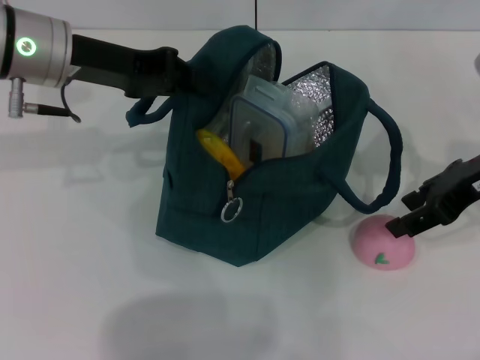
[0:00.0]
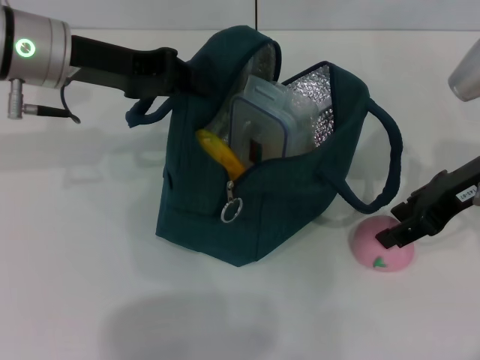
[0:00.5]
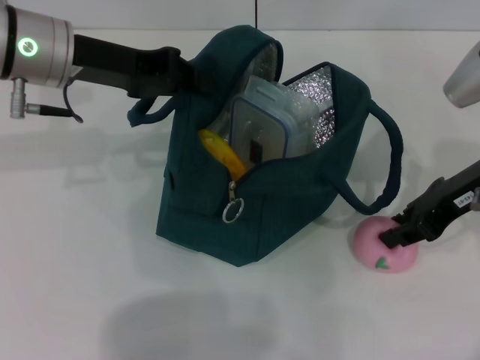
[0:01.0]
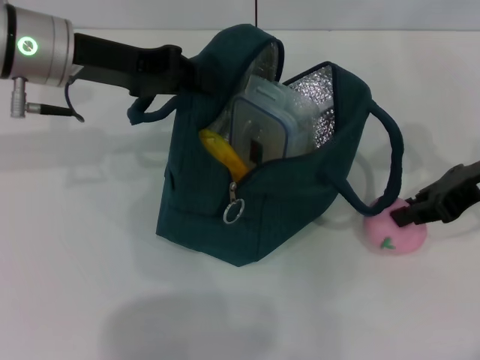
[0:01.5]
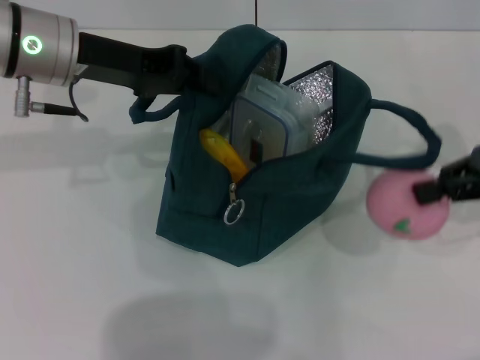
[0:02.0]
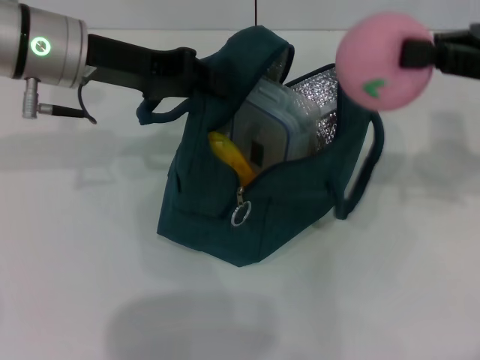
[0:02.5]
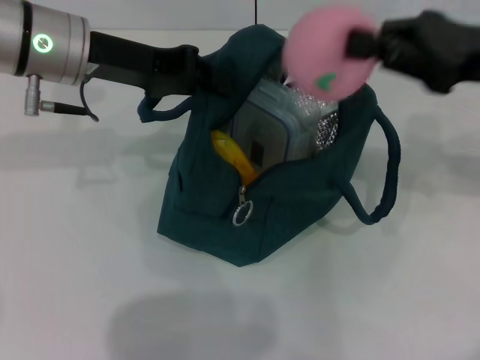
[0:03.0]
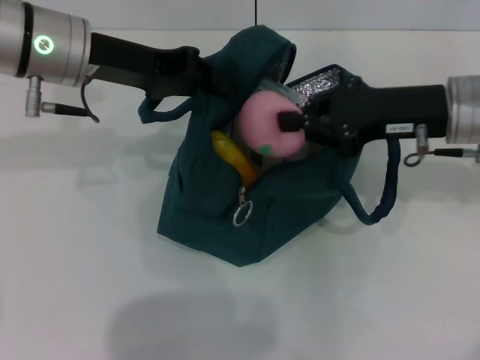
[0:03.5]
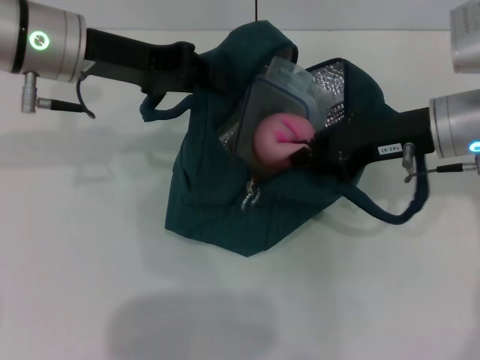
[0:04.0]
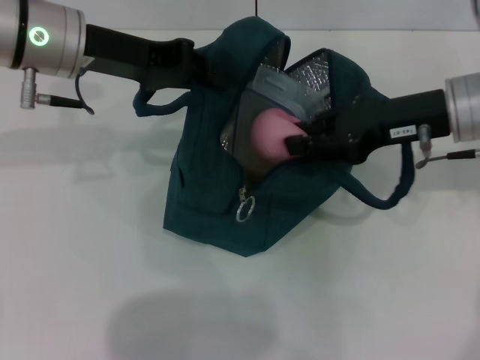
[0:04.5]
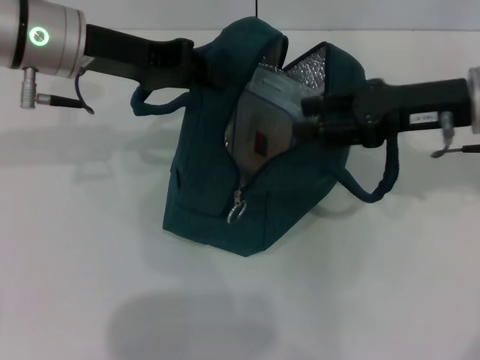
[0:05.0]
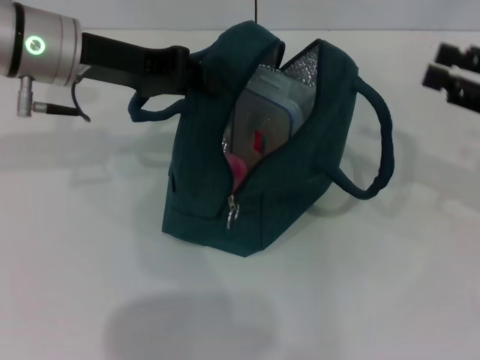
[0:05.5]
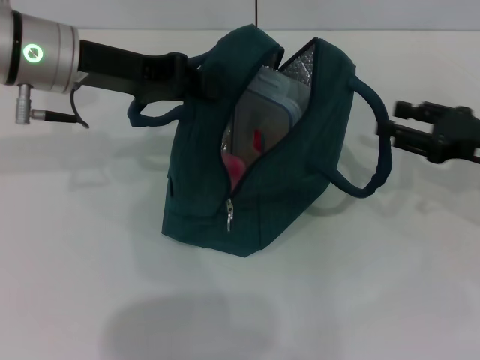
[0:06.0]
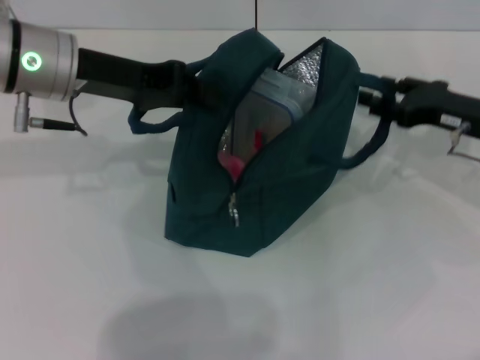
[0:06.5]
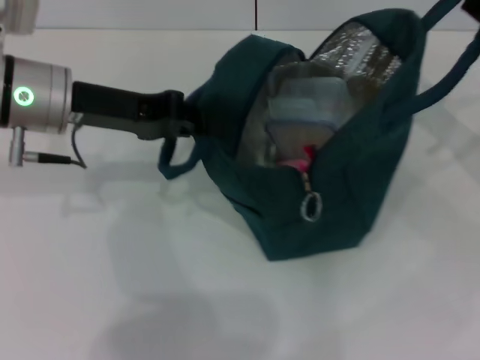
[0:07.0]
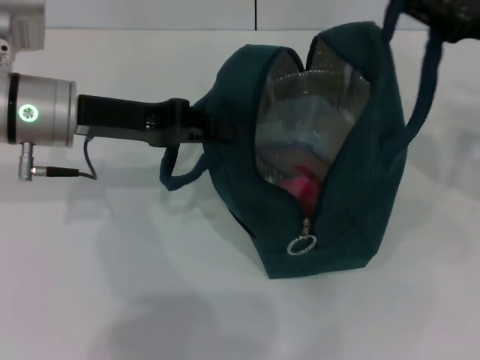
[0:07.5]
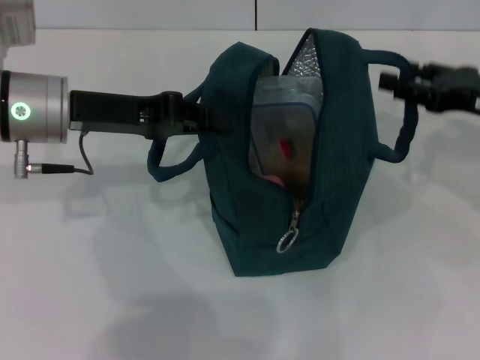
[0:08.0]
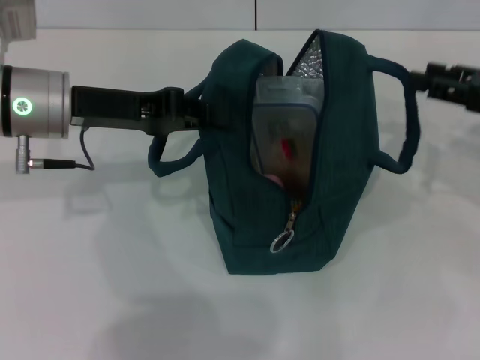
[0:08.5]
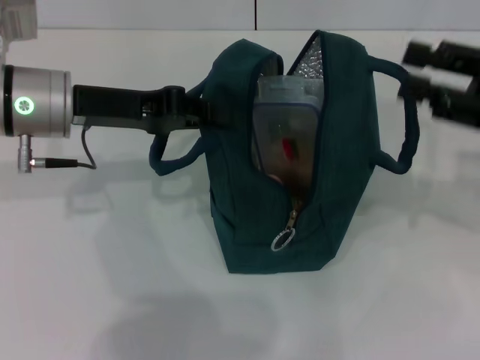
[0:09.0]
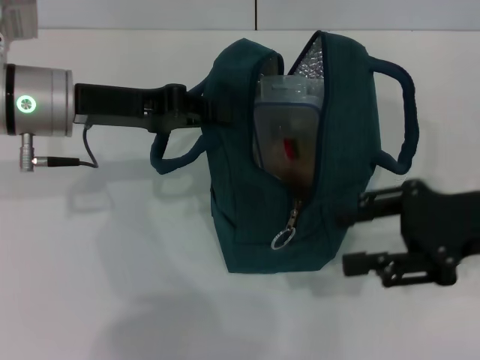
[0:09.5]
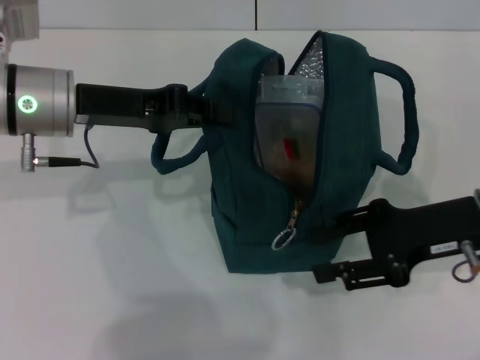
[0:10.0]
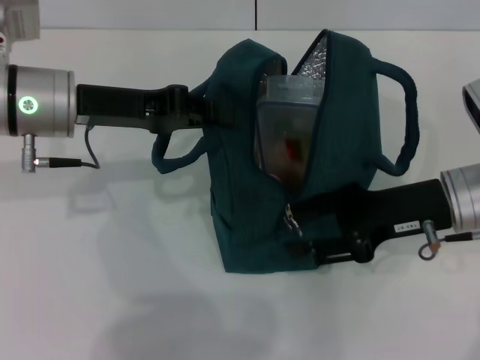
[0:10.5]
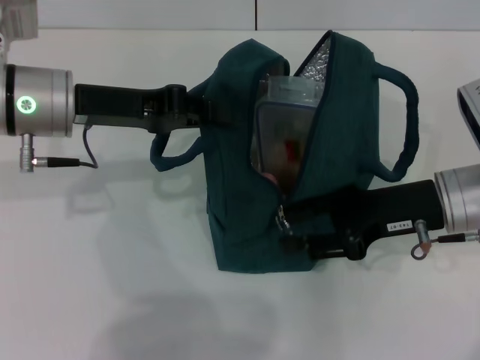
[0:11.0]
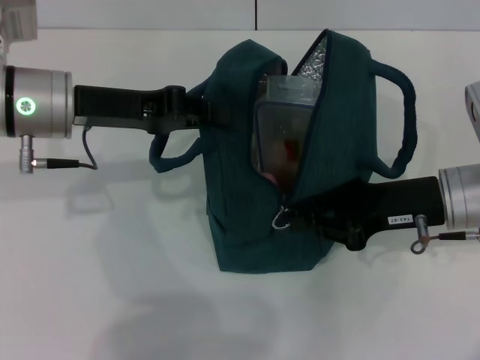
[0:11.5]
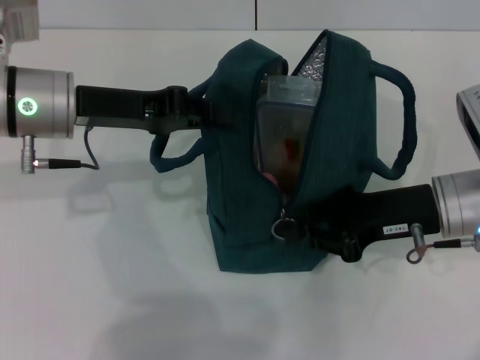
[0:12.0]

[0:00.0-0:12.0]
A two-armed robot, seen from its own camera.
Step, 0:05.5 to 0:08.0: Hold the lunch bag with your right hand.
0:00.0 to 0:02.0: The right gripper moves to the right, roughly 5 cm, and closes up.
0:02.0 to 0:04.0: The right gripper heads to the left and downward, covering roughly 10 cm.
0:04.0 to 0:06.0: The right gripper shifts roughly 10 cm to the right, and opens up.
0:08.0 to 0:10.0: The right gripper goes some 10 cm backward and to the left.
0:10.0 to 0:12.0: The right gripper closes its fingers.

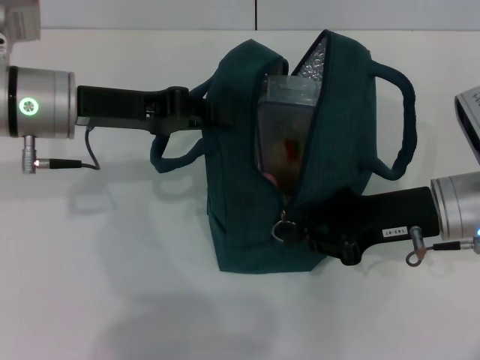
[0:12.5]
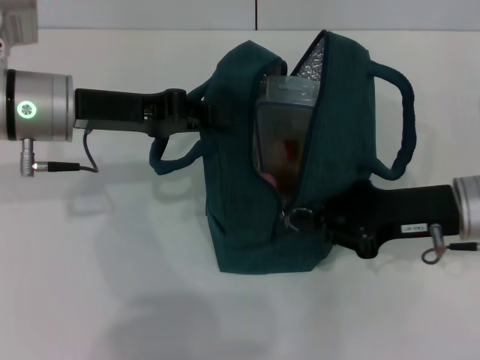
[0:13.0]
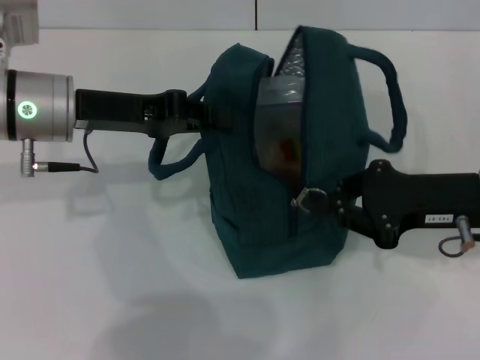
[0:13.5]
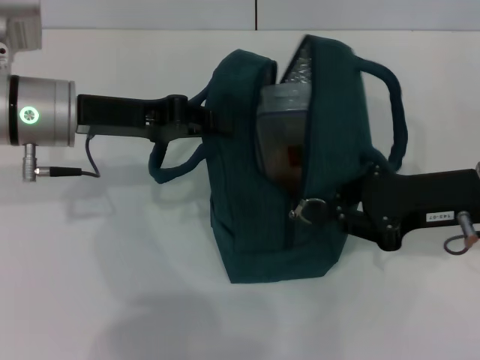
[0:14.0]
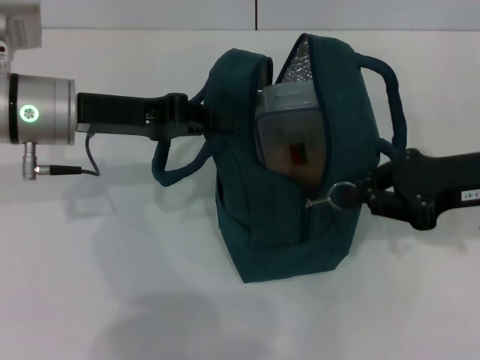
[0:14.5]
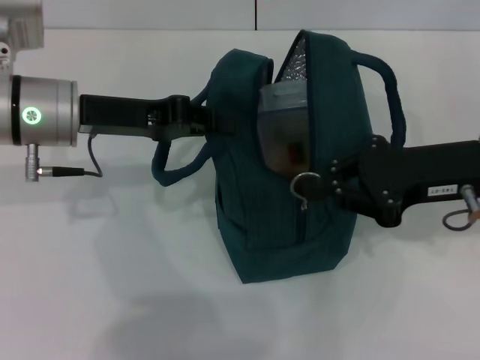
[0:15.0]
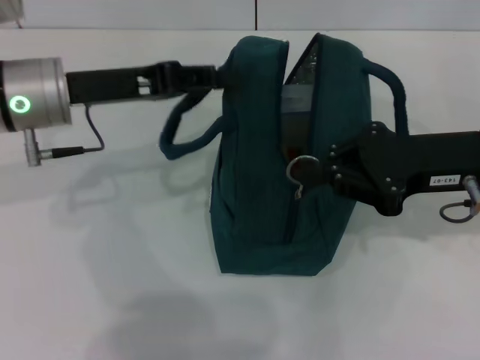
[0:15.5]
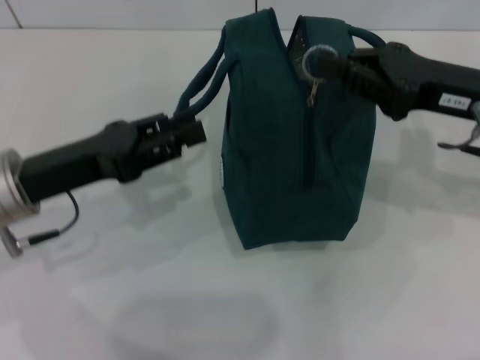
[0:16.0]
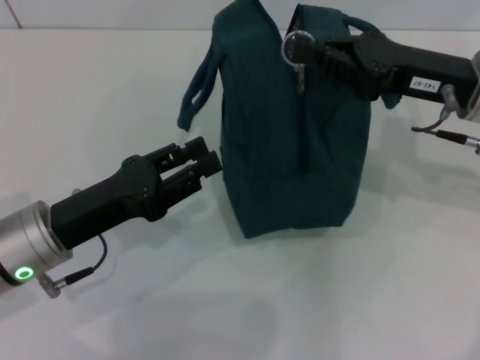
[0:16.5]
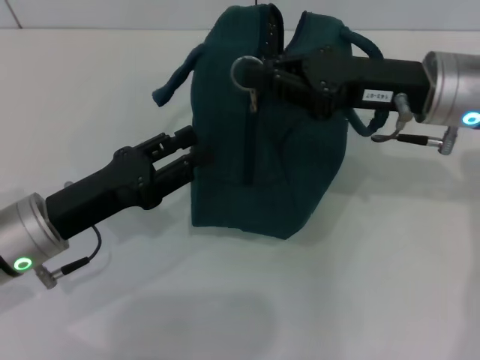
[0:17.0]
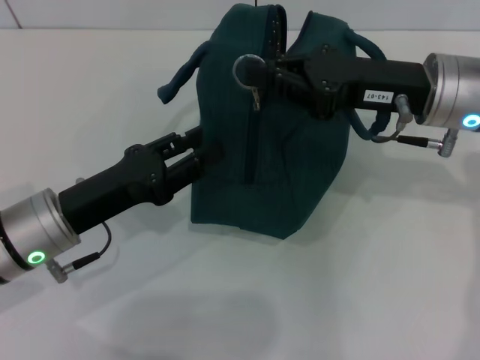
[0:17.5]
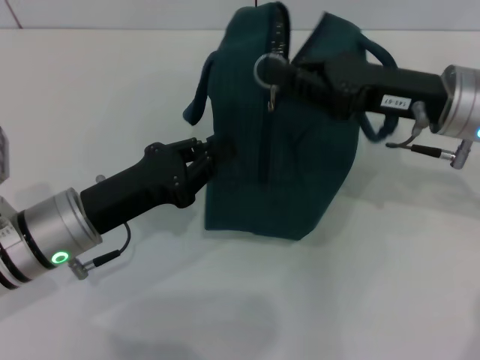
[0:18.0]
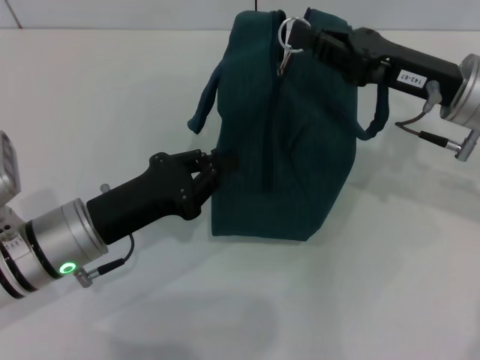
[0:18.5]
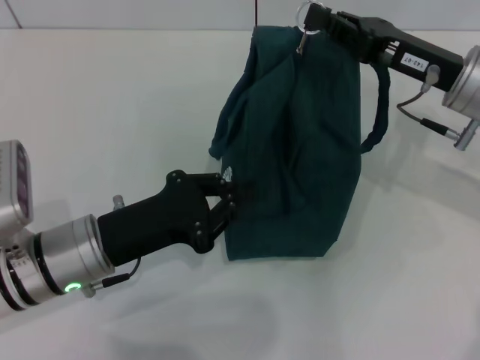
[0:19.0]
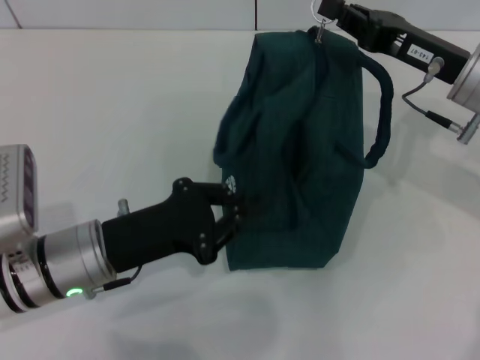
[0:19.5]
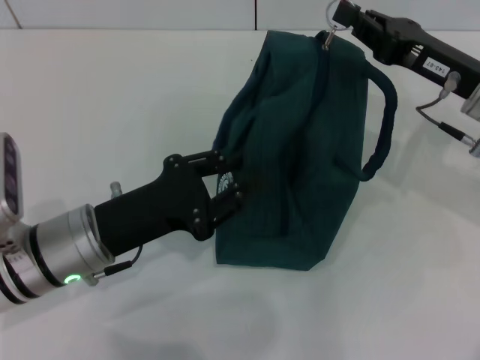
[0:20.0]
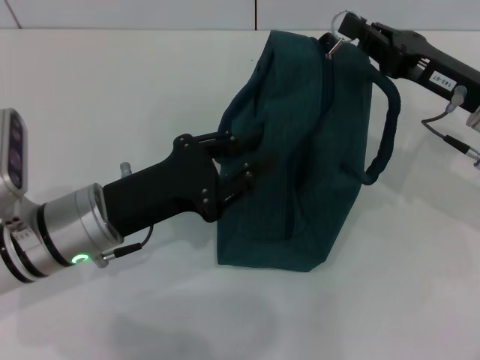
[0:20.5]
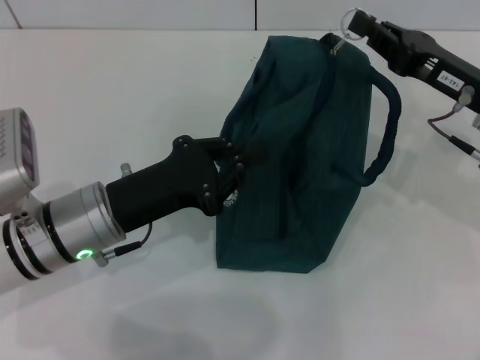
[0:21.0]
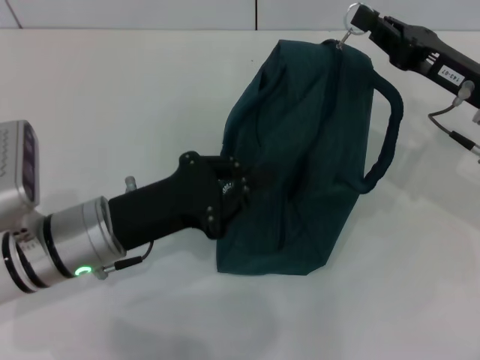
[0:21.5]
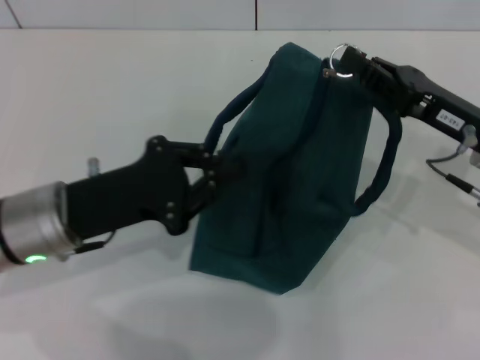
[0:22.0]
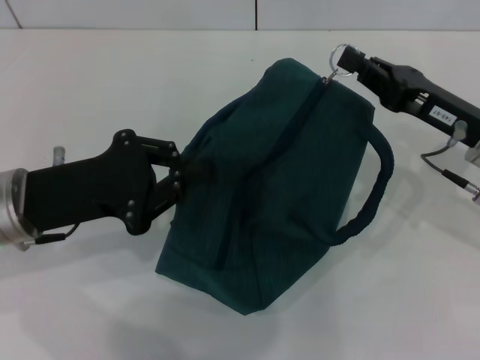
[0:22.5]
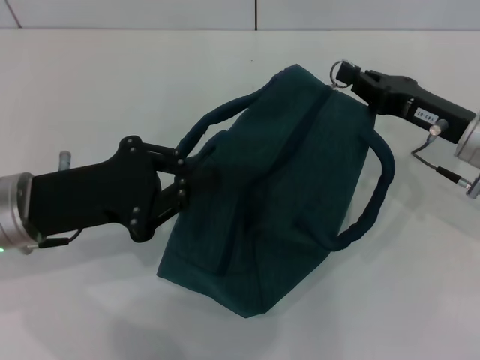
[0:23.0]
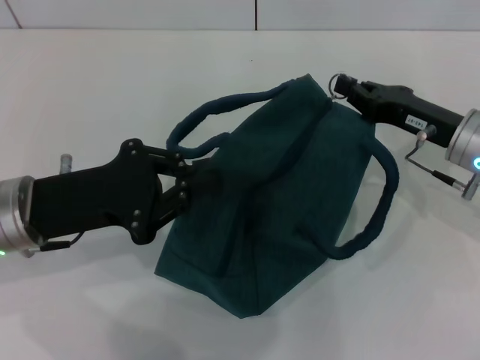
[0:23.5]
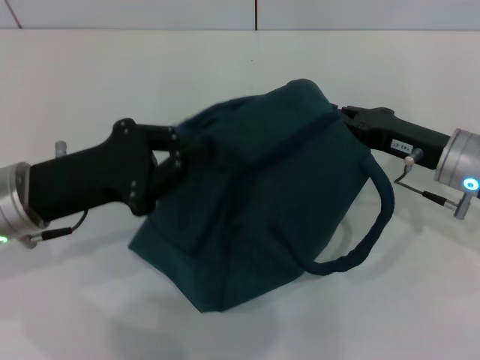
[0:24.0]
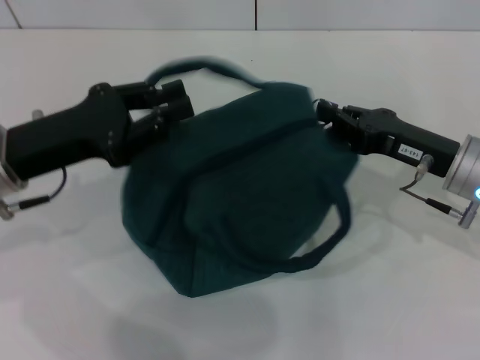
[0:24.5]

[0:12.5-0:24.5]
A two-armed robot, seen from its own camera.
Step, 0:12.5 to 0:15.5: Hold the lunch bag with your left hand.
0:12.5 to 0:14.5: The right gripper shifts approximately 5 cm to the right and upward.
0:14.5 to 0:16.5: The right gripper moves approximately 5 cm; the left gripper shifts roughly 15 cm backward and downward, and opens.
0:16.5 to 0:18.5: The left gripper closes its fingers.
0:20.5 to 0:22.5: The left gripper travels to the left by about 5 cm.

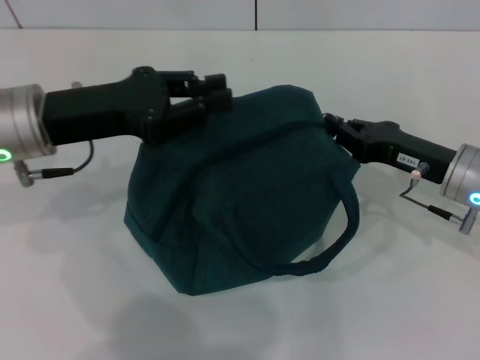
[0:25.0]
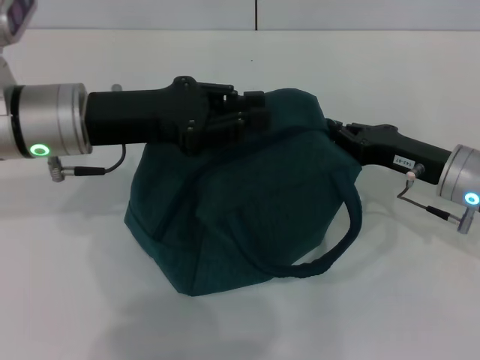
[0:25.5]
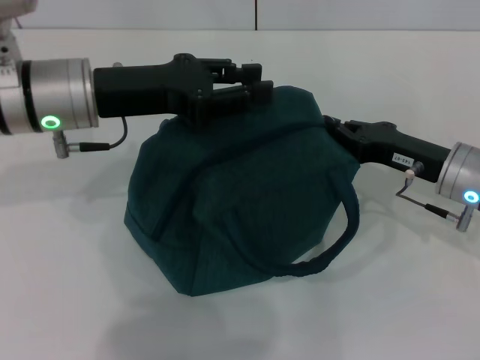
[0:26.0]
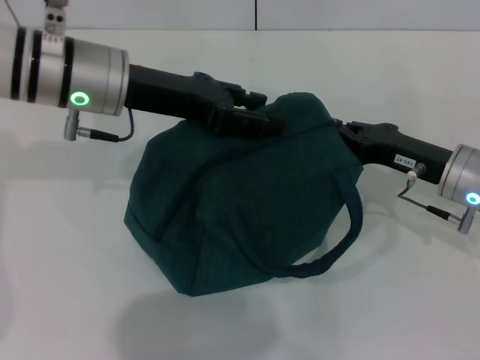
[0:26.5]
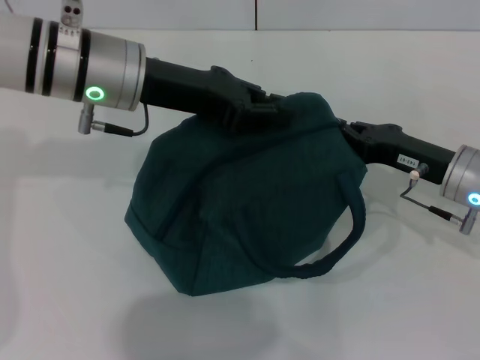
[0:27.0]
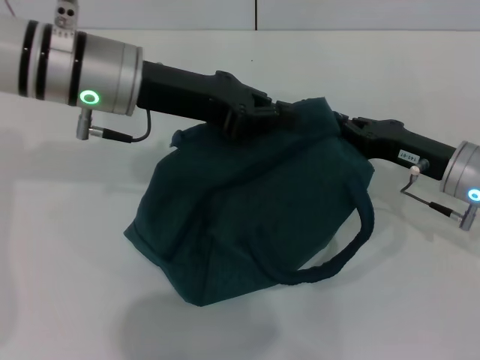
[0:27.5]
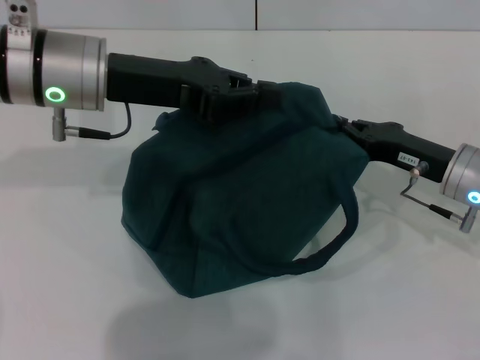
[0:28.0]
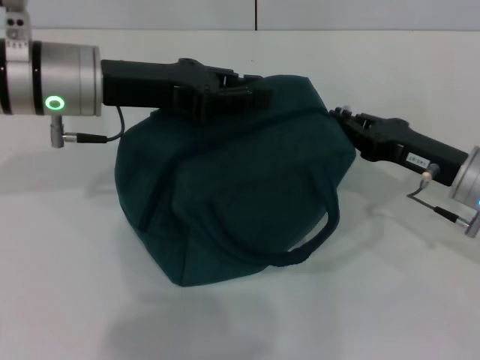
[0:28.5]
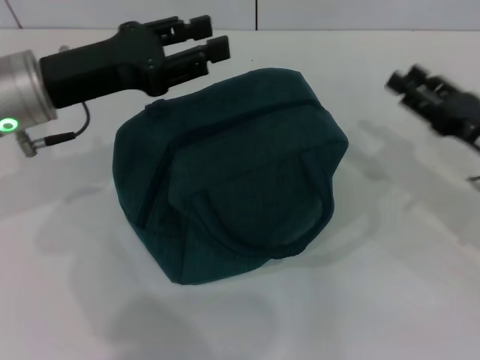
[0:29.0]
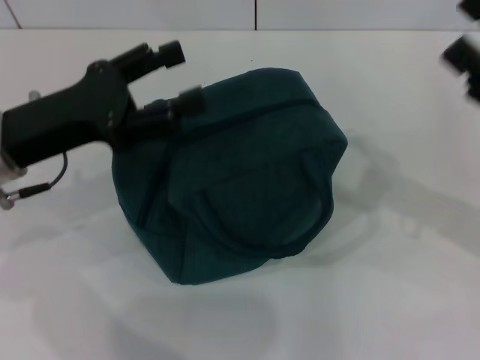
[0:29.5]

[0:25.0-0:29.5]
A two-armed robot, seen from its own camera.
Step, 0:25.0 to 0:28.5: Zip up the lunch bag with your right hand.
0:25.0 to 0:27.0: The left gripper goes some 5 cm to the right.
0:27.0 to 0:29.5: The left gripper moves to the left and backward, about 15 cm, and opens up. The right gripper is displaced upward, to the right and backward by roughly 10 cm, and opens.
